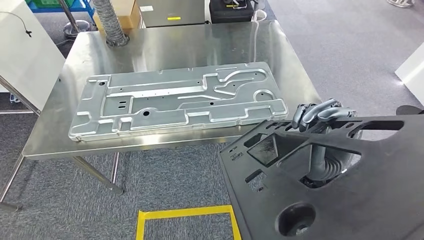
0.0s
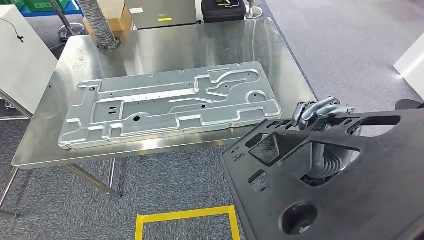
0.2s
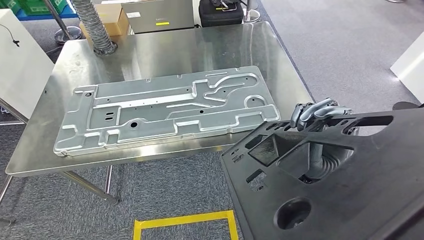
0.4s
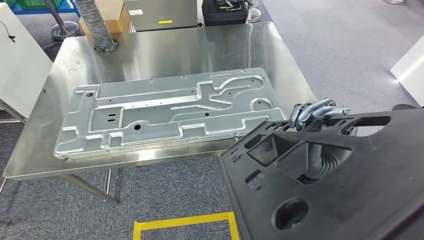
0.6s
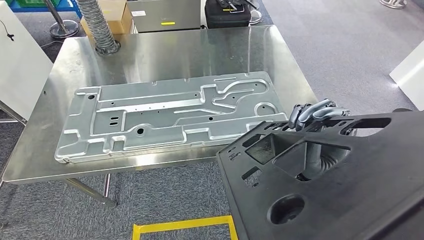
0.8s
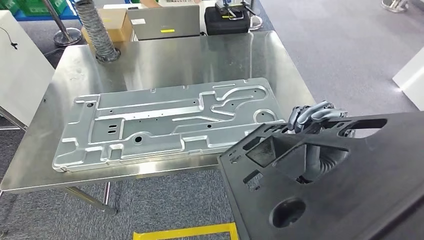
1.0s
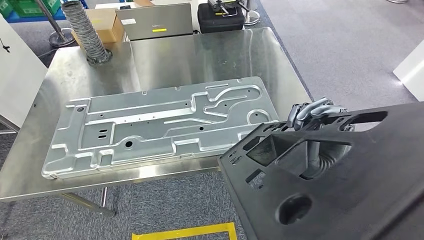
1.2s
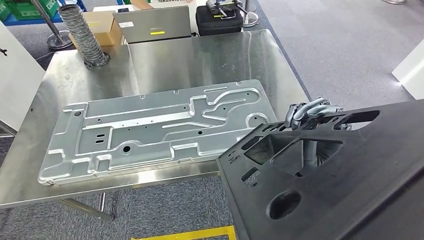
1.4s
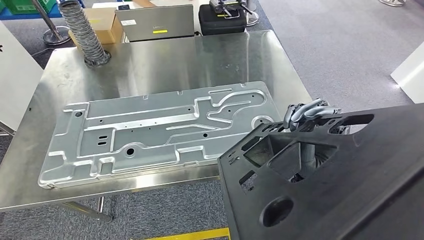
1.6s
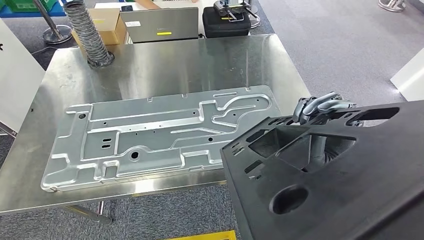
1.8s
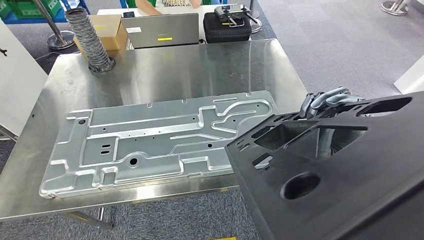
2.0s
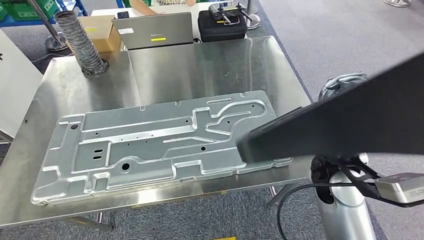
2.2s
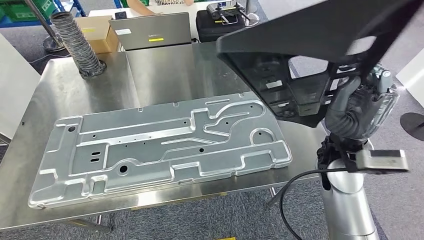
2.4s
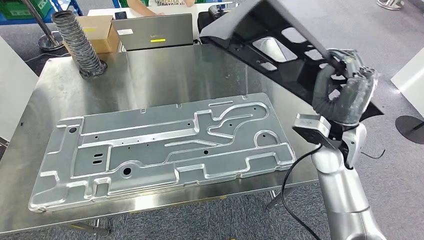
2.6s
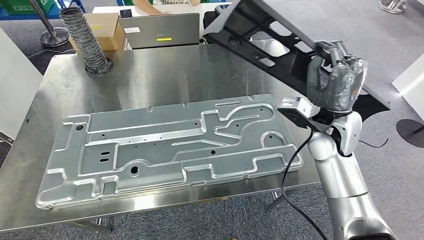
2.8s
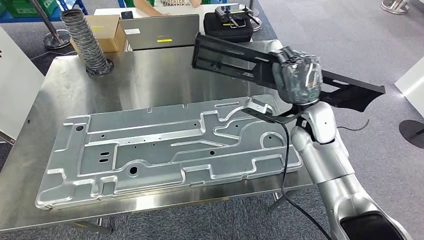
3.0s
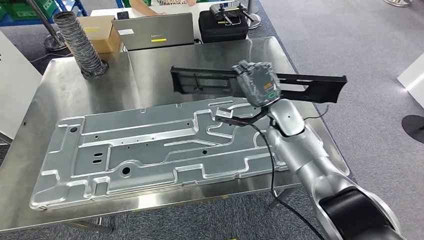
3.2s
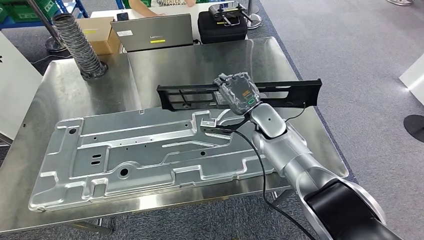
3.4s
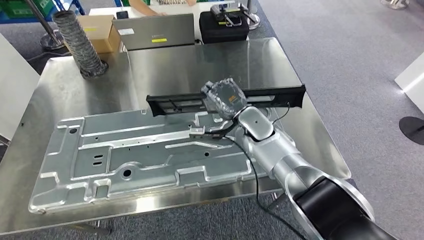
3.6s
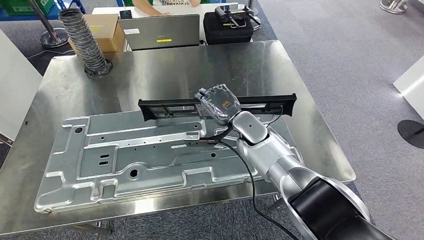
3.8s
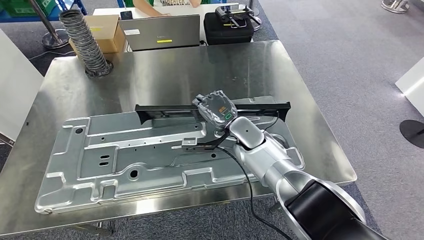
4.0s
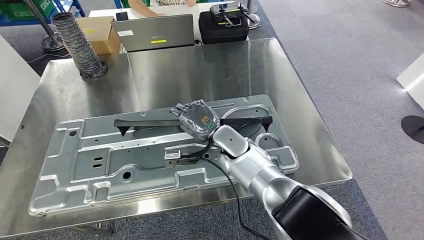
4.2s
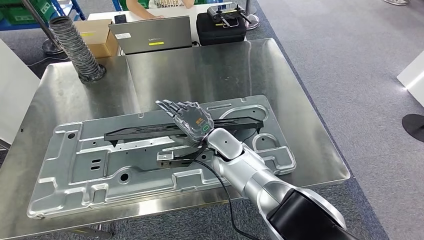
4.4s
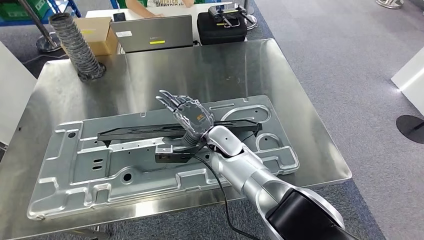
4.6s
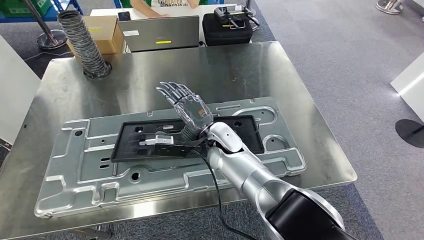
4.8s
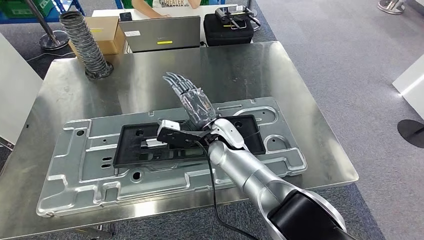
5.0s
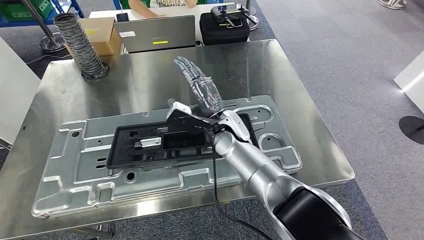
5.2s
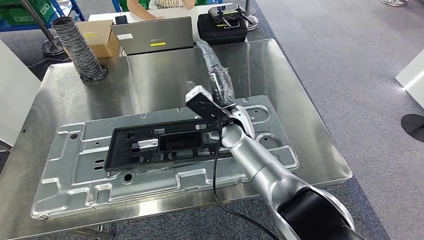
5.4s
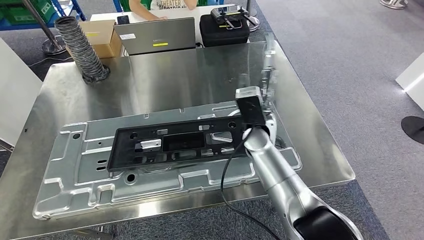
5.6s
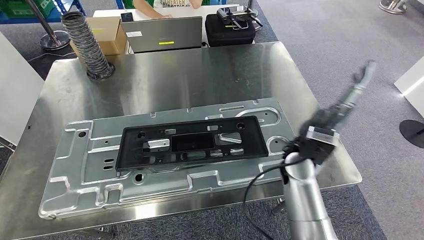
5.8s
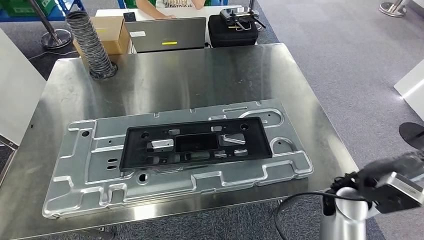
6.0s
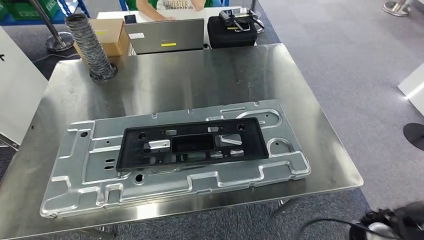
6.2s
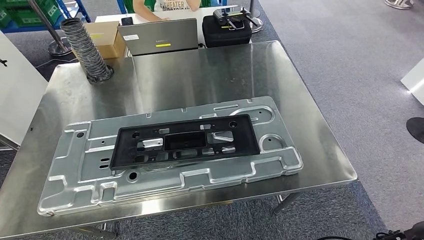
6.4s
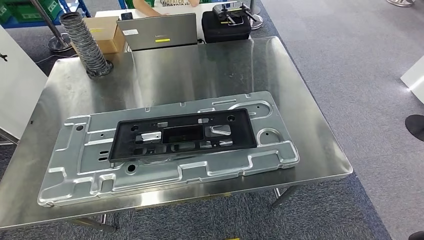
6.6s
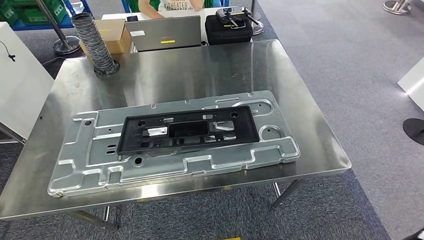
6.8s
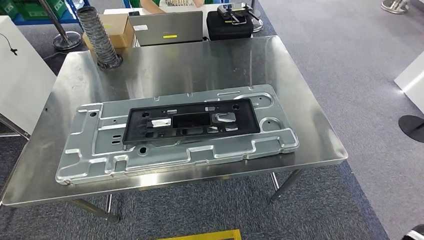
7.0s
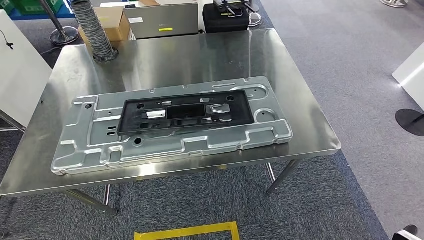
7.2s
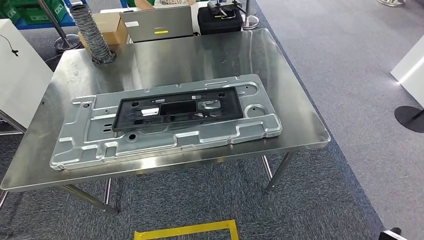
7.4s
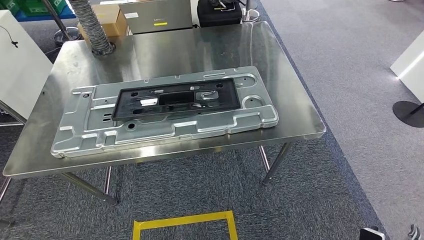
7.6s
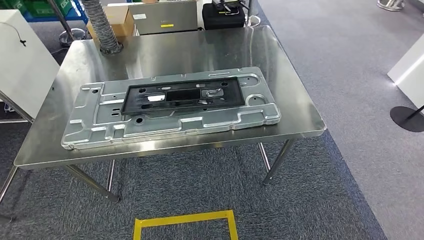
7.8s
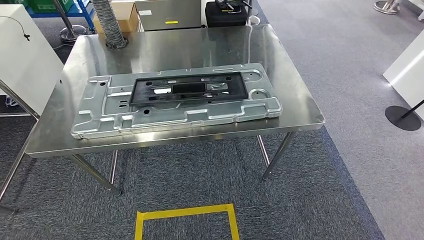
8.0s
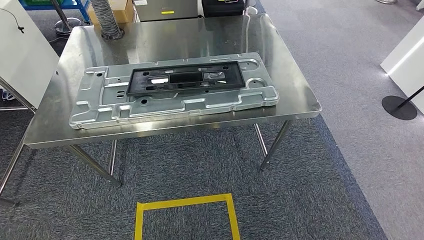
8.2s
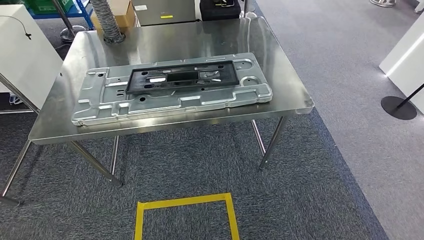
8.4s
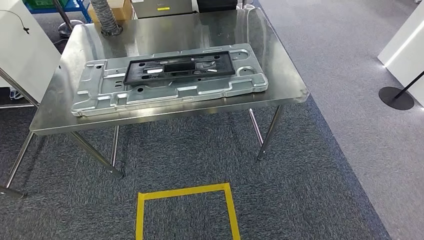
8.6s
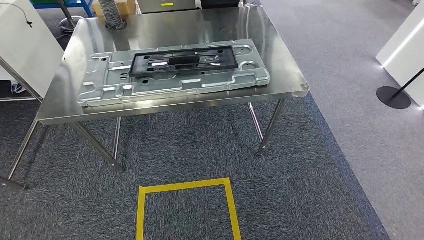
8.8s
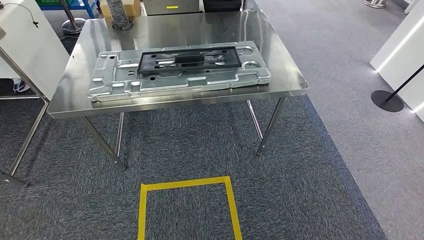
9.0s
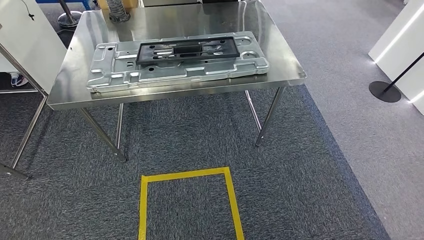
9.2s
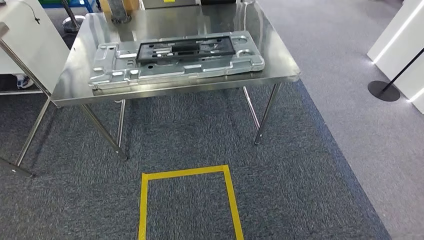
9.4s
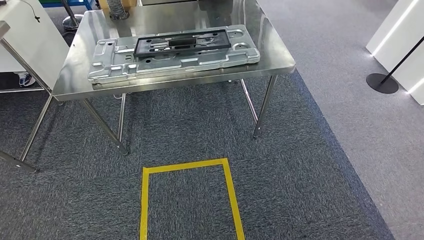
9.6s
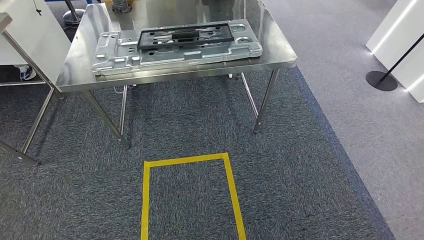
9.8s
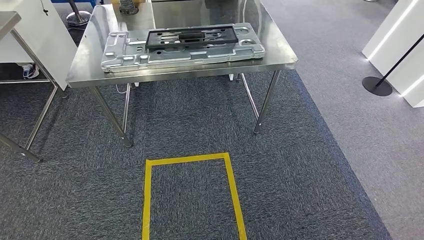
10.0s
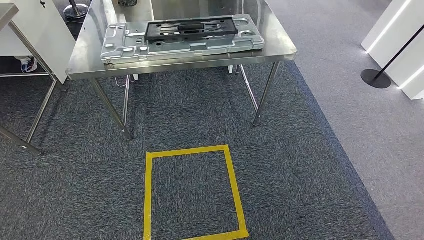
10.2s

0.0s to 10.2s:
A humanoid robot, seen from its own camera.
Step, 0.0s to 7.2s: Insert the large material into the corresponding slot on the workbench.

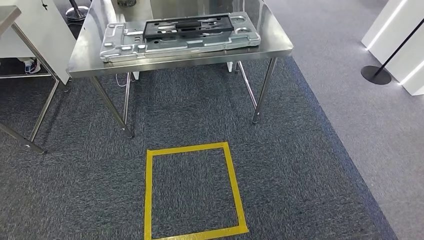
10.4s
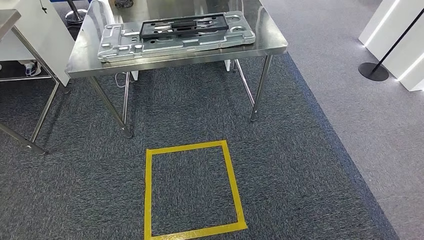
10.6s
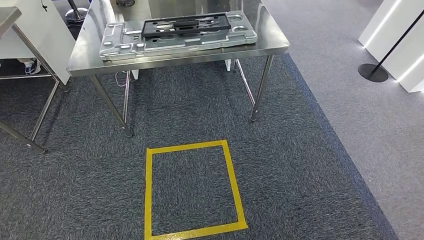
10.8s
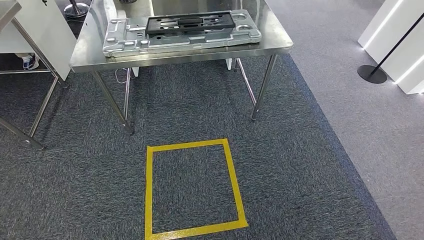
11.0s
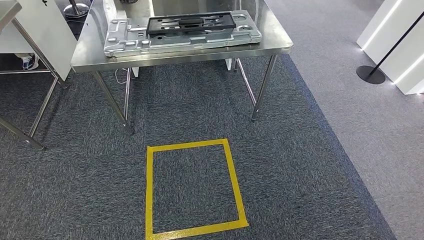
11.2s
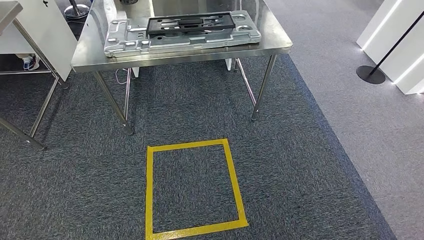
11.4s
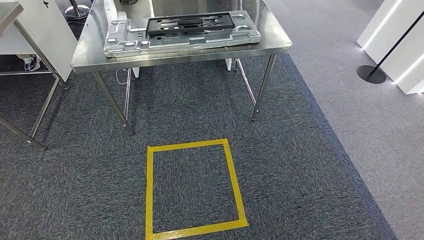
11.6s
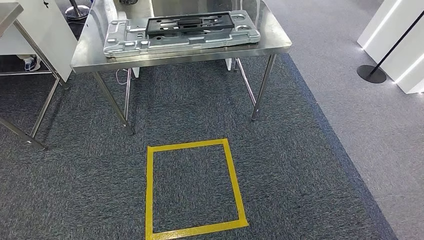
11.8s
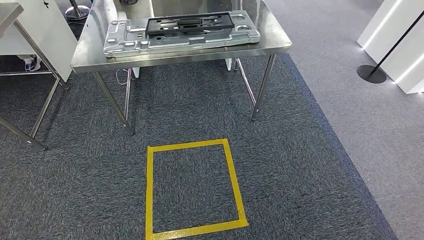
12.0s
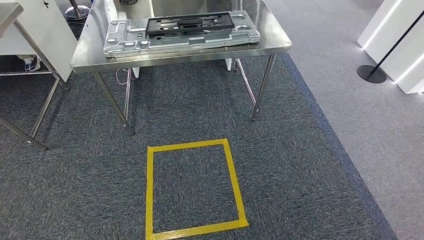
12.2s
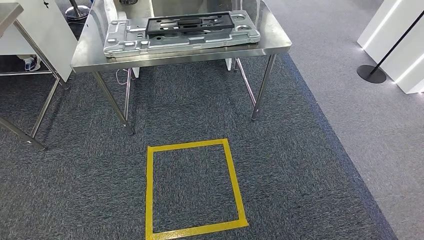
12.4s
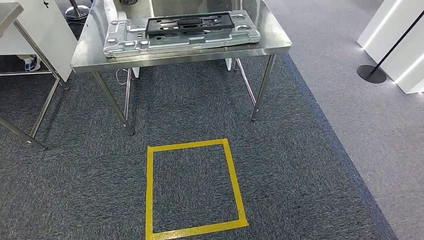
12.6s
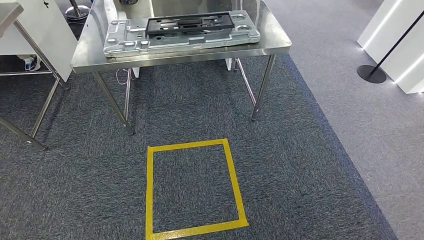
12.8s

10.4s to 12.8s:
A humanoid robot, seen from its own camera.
Step, 10.4s to 12.8s: Return to the initial position at the shelf.
10.4s to 11.6s: The hands make only small movements.
